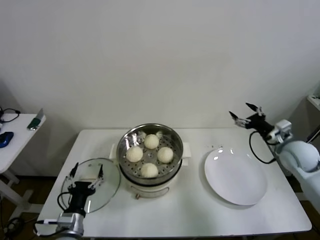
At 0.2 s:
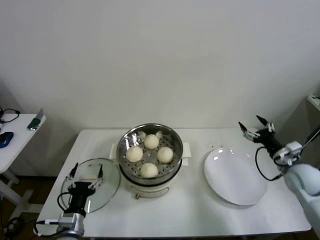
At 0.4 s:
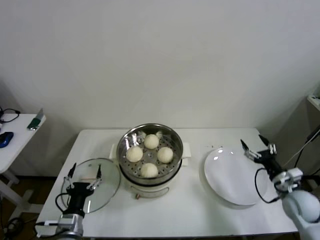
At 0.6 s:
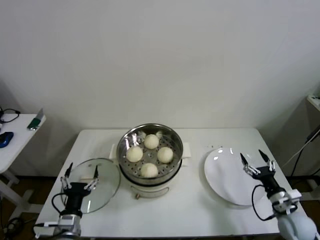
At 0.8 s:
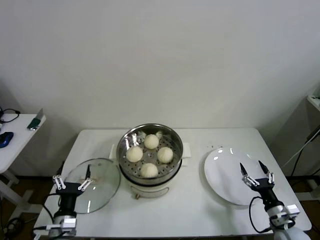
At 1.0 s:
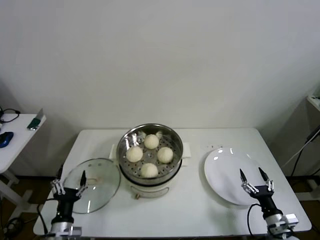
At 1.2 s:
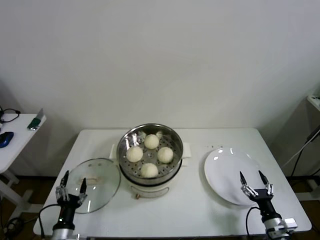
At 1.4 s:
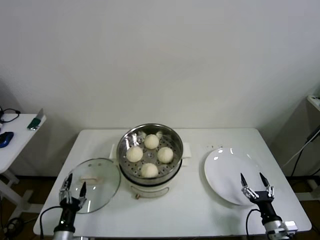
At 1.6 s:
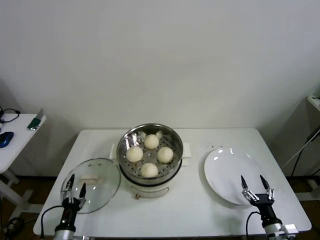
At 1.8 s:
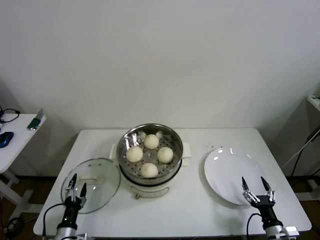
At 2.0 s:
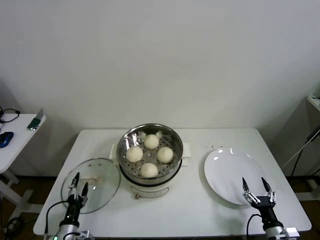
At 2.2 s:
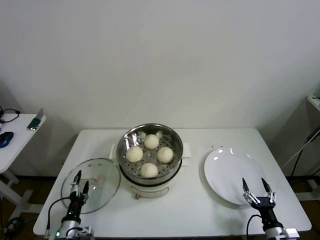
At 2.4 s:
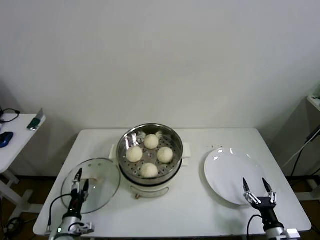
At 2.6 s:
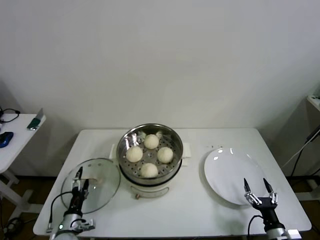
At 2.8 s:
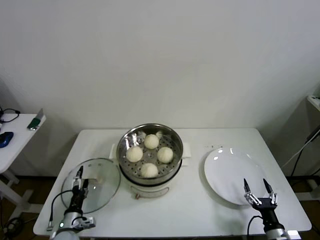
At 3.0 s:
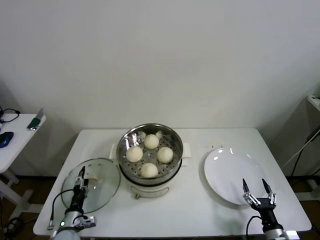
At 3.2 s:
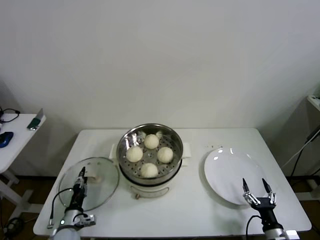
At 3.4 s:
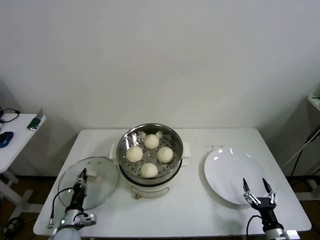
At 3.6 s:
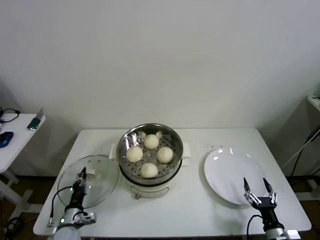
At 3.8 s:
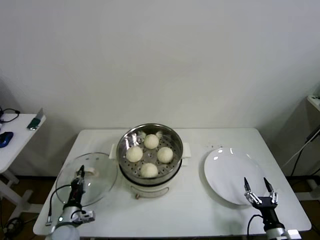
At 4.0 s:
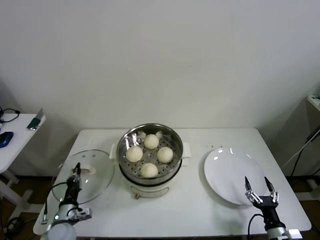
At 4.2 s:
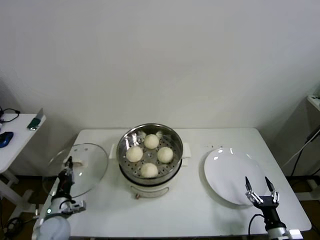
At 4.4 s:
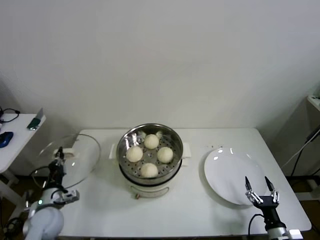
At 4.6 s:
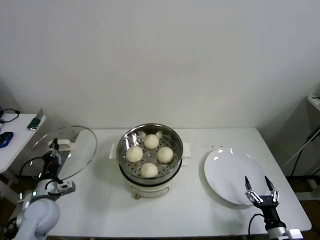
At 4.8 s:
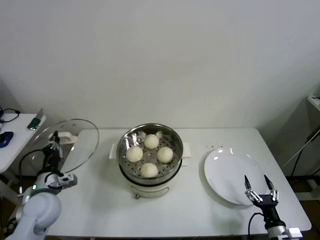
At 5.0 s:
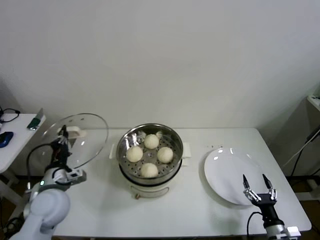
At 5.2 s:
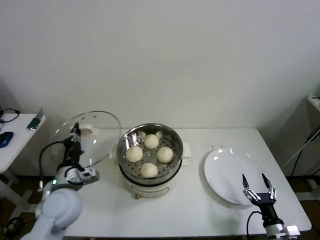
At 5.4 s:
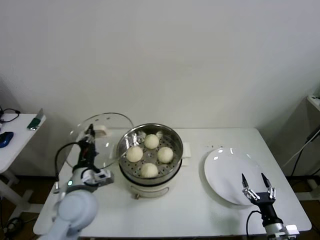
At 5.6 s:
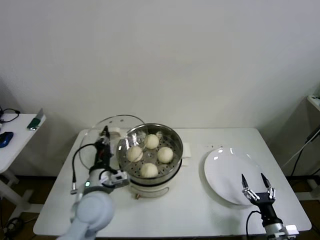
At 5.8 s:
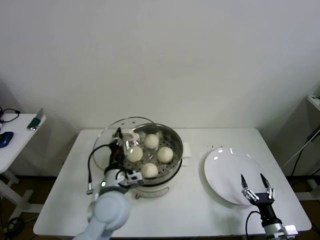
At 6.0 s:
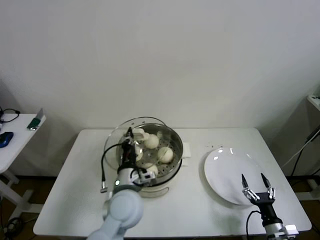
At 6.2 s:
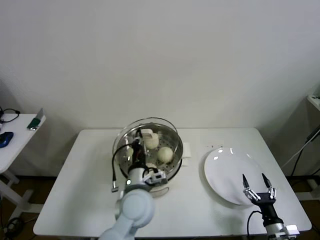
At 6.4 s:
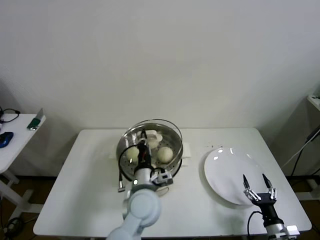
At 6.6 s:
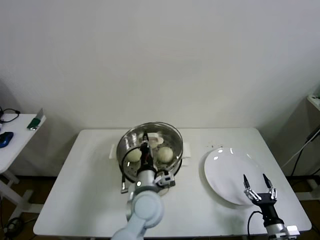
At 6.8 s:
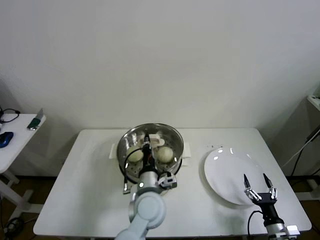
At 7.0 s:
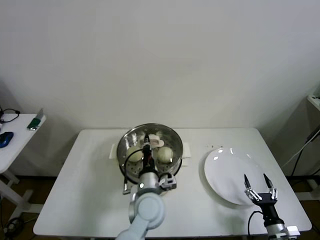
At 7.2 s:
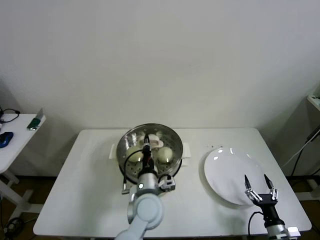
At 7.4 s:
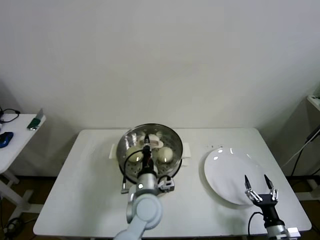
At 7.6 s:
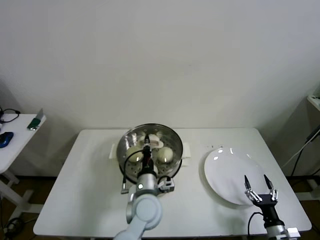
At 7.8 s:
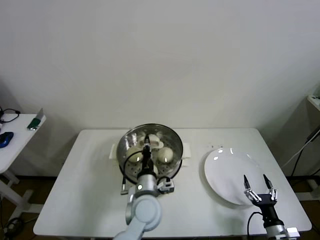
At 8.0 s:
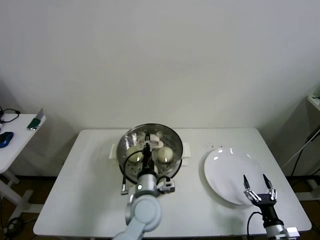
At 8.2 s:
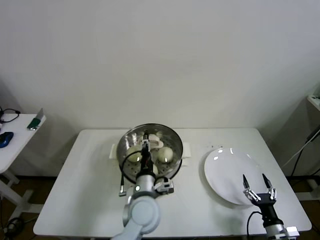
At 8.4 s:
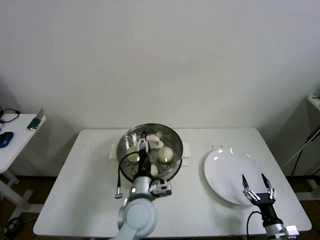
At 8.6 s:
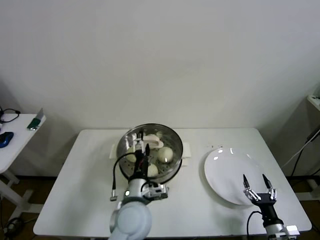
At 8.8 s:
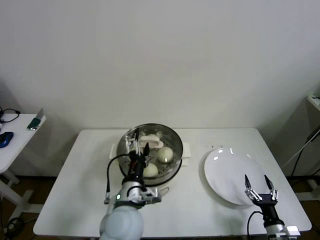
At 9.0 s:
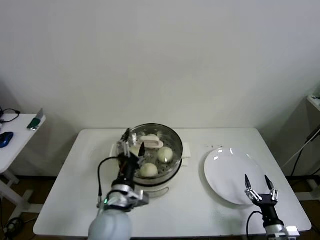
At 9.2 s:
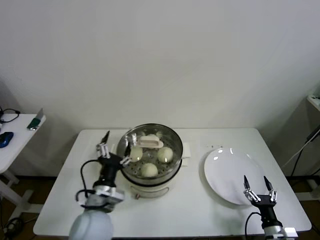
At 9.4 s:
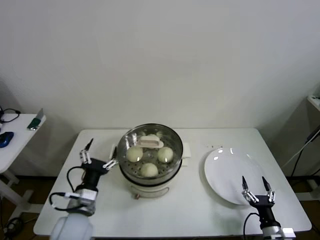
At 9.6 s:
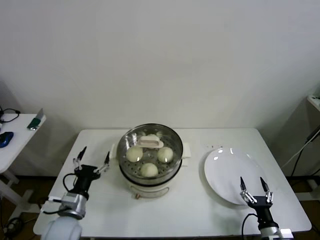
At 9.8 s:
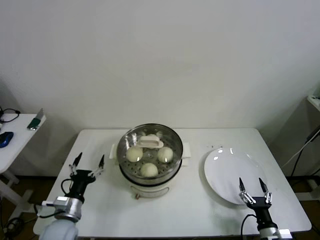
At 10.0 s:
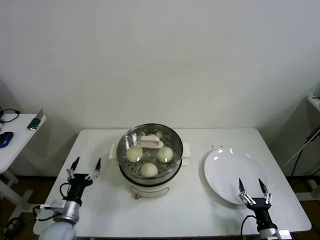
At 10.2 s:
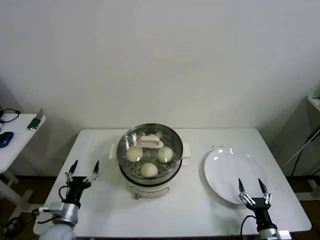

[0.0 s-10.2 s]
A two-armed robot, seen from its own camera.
Step, 0.0 to 3.4 s: Grasp the pot lid with left gripper.
Step, 3.6 to 8.0 s: Place the pot lid on the steamer with left gripper.
0.0 to 1.4 s: The left gripper travels downward and to the left by about 10 cm. Meanwhile the right gripper heads downward and backward, covering about 35 cm.
1.4 to 3.0 s: The left gripper heads forward, covering roughly 5 cm.
3.0 to 4.4 s: The left gripper heads upward, covering approximately 10 cm, and closes up.
4.4 to 5.8 s: The left gripper heads to the right and upward, covering roughly 25 cm.
5.8 to 7.2 s: The left gripper moves to the right and downward, approximately 10 cm.
7.2 to 8.8 s: The left gripper changes place by roughly 10 cm, and opens its fingers.
8.8 to 10.2 s: The left gripper is displaced to the left and downward by about 25 cm.

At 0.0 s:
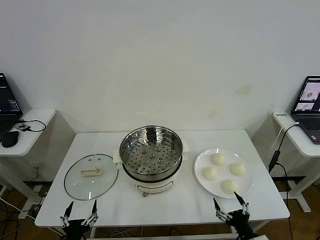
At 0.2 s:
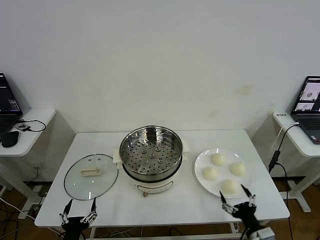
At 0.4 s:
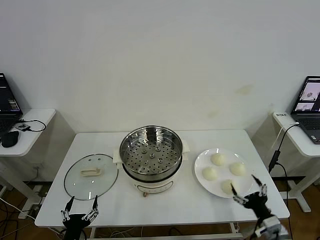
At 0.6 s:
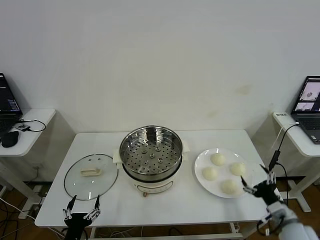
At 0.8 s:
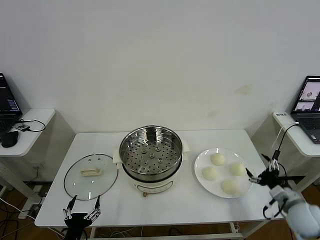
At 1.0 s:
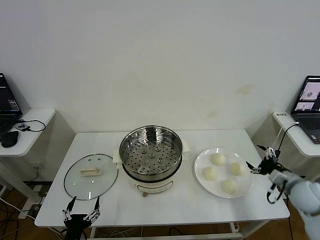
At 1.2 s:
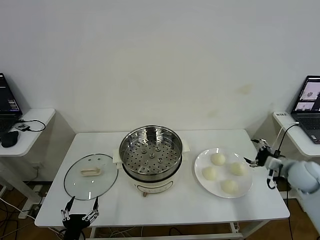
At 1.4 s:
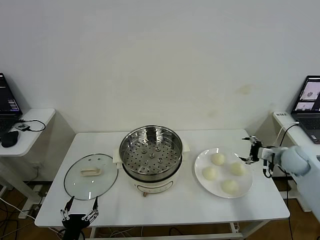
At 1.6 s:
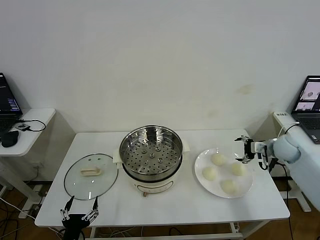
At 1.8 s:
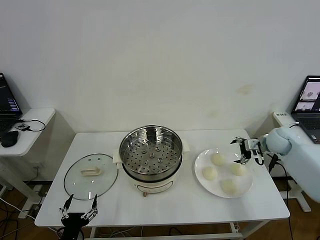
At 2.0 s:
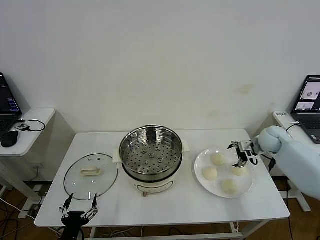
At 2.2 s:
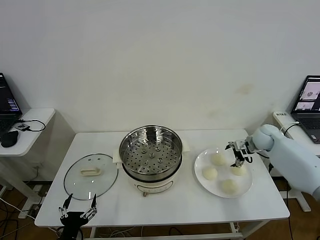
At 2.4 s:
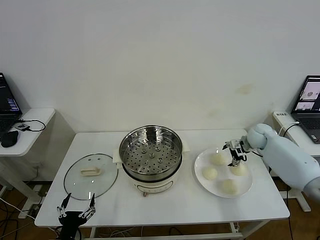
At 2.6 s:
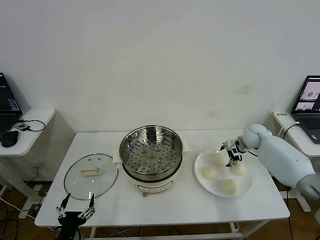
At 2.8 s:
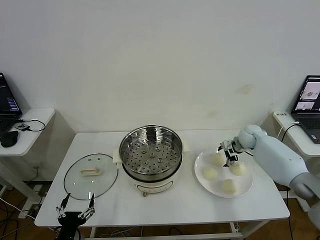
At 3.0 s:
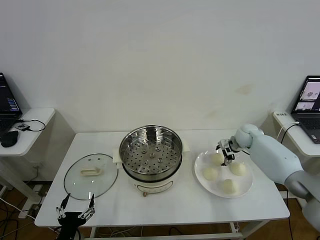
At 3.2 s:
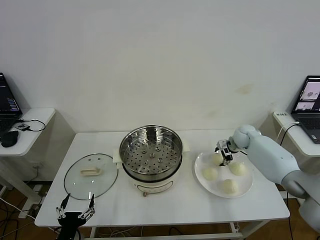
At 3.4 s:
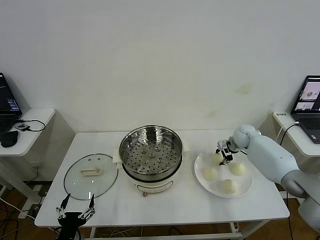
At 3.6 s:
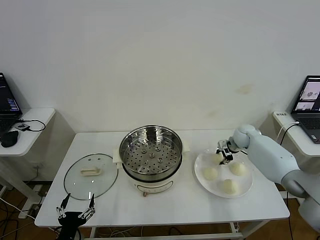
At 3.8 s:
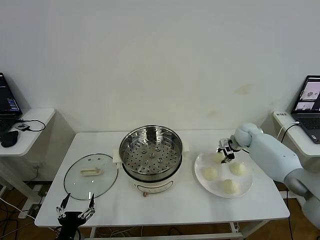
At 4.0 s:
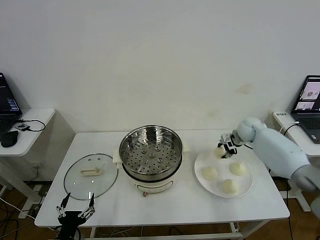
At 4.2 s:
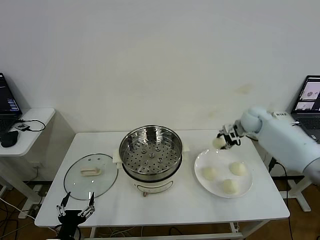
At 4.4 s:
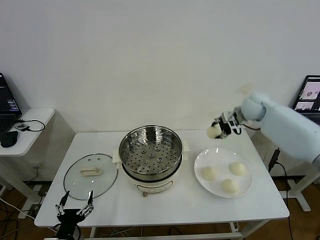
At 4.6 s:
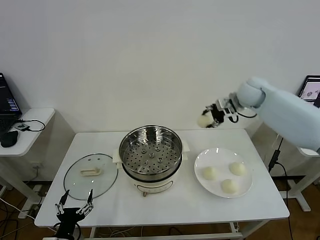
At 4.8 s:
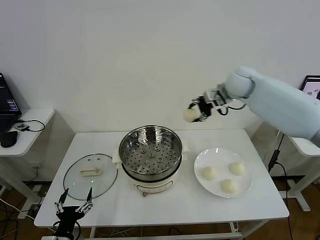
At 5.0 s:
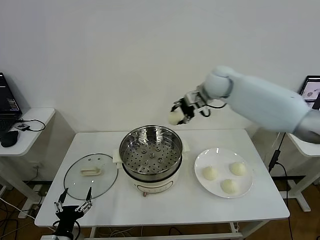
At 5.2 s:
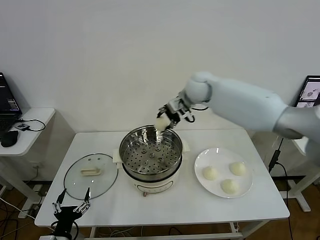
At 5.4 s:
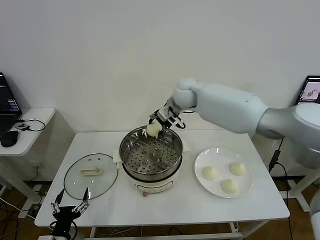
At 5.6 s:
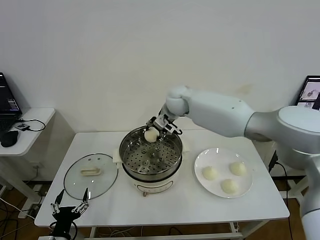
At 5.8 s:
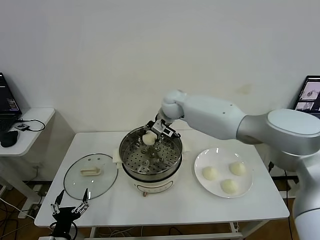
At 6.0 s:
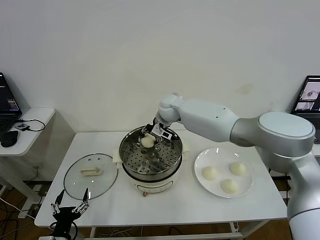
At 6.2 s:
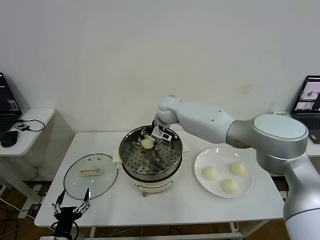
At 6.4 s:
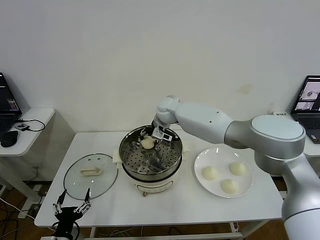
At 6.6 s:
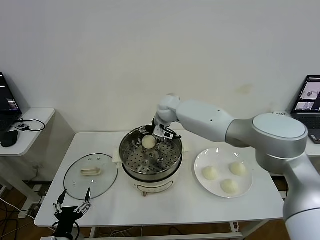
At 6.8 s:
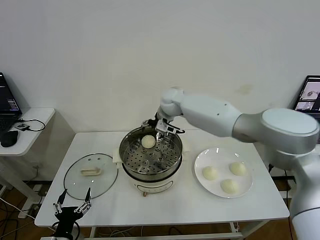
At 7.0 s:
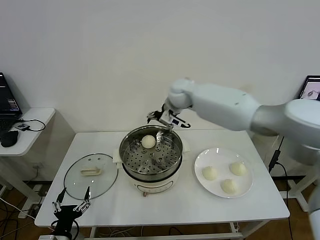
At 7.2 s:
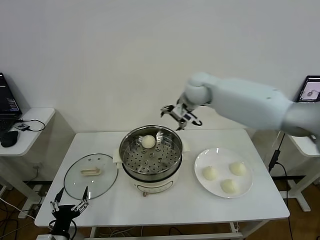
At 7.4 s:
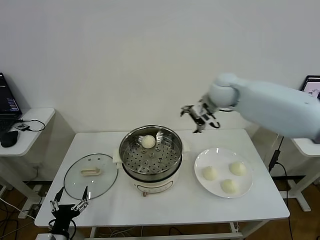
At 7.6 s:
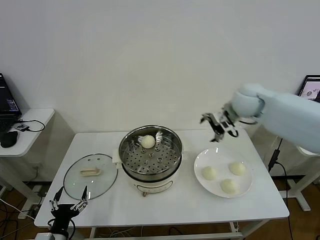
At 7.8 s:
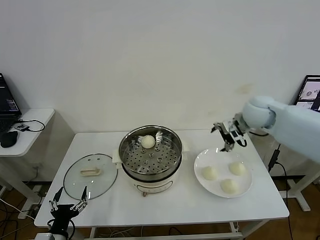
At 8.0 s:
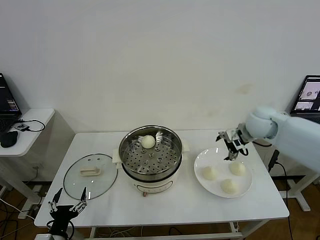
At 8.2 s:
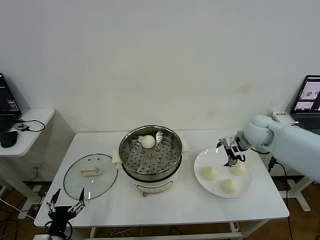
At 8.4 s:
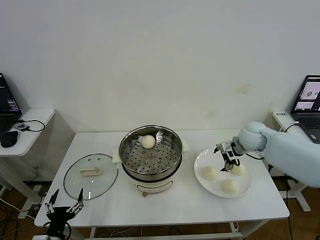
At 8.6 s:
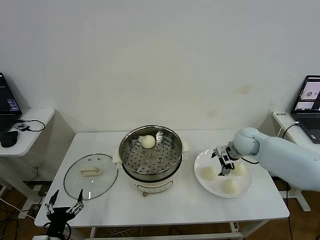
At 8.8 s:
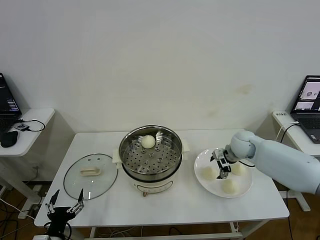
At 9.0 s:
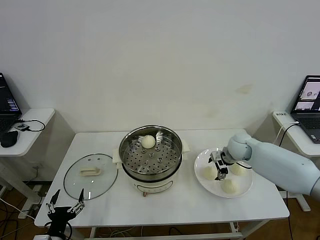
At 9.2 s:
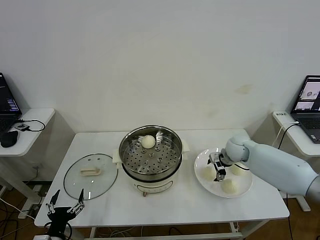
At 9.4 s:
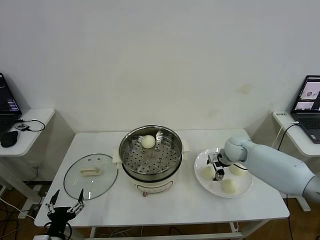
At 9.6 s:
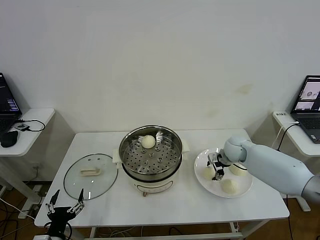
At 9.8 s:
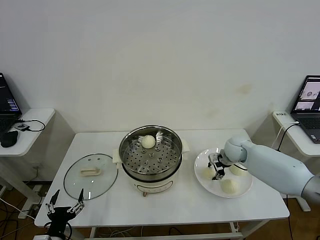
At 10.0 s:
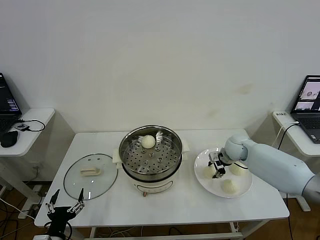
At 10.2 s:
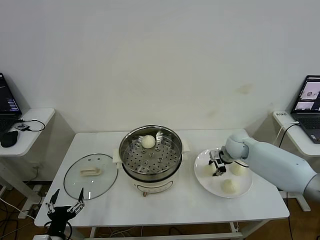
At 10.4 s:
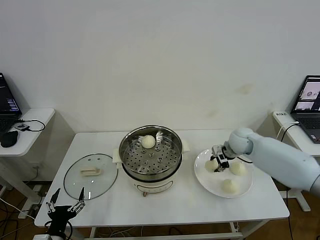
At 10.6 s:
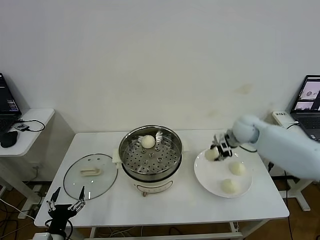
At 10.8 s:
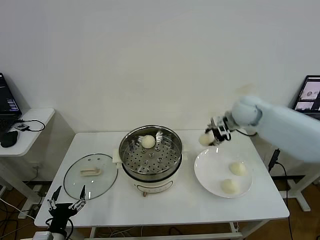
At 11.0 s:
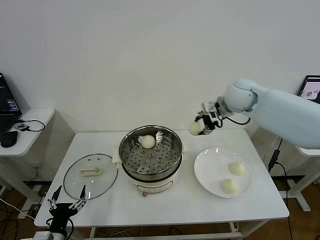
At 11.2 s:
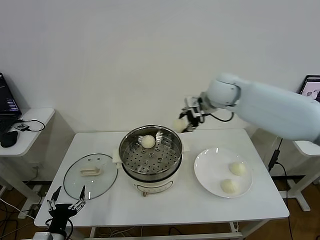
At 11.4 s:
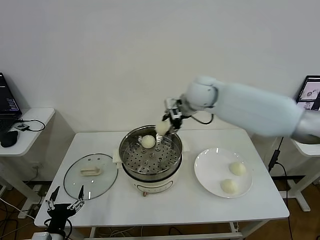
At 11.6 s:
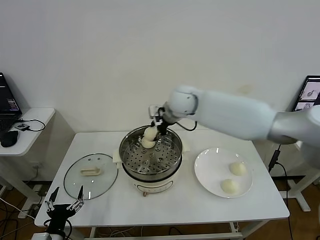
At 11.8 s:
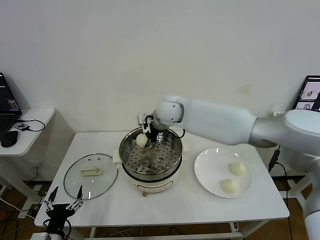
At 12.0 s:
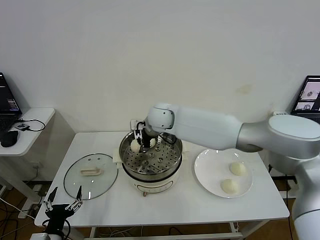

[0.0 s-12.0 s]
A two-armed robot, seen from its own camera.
Step, 0.0 to 3.2 s: Grasp the baozi in the plate with right gripper.
Step, 3.4 to 6.4 s: Place the baozi on the steamer with right gripper.
Step, 6.6 to 9.6 s: Grasp the baozi in the plate with right gripper.
1.6 to 3.0 s: The right gripper travels forward, to the left and downward by some 15 cm.
3.0 to 4.4 s: The right gripper moves upward, approximately 15 cm, and closes up.
4.4 to 6.0 s: The right gripper moves to the left, approximately 30 cm.
6.0 to 7.6 s: The right gripper moves to the right, some 25 cm, and opens its fingers.
7.6 to 9.0 s: The right gripper shifts roughly 20 cm downward.
9.0 to 10.4 s: The right gripper closes up.
10.4 to 12.0 s: The right gripper heads to the left, covering approximately 30 cm.
